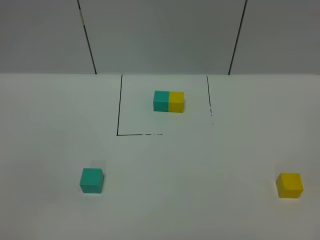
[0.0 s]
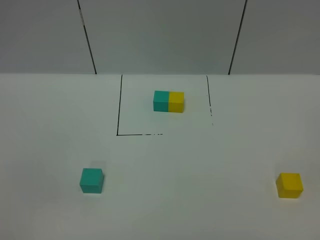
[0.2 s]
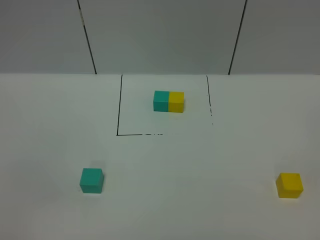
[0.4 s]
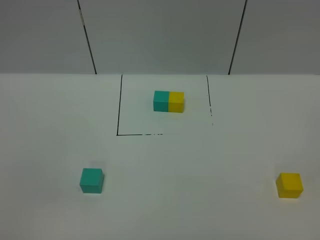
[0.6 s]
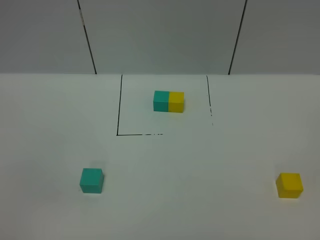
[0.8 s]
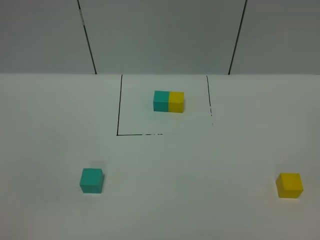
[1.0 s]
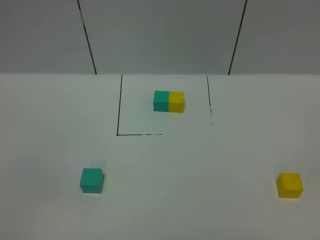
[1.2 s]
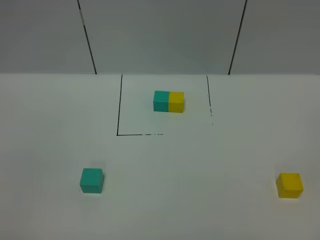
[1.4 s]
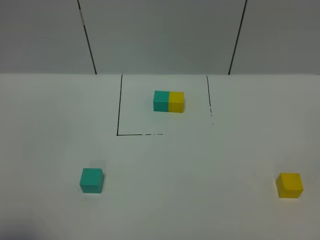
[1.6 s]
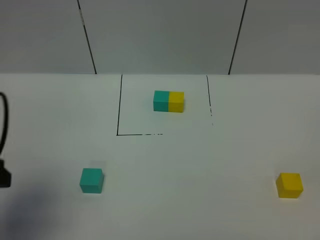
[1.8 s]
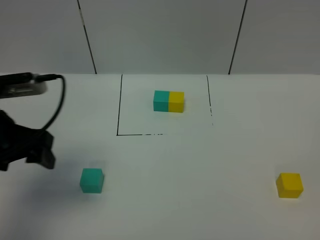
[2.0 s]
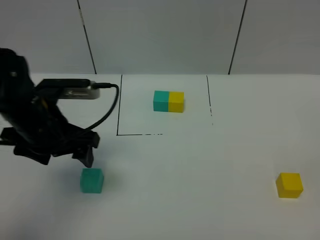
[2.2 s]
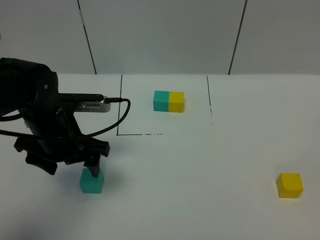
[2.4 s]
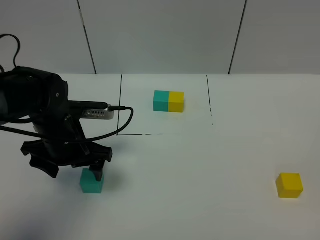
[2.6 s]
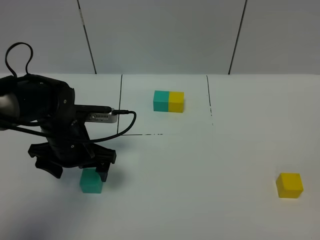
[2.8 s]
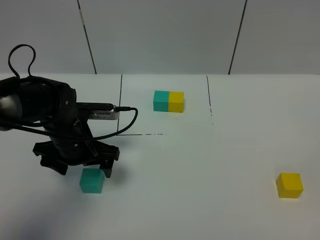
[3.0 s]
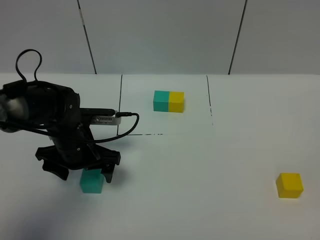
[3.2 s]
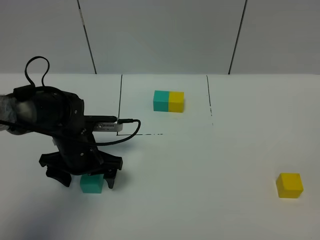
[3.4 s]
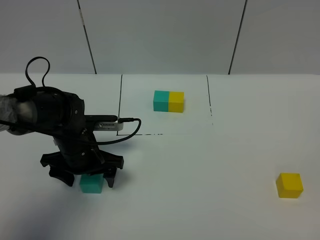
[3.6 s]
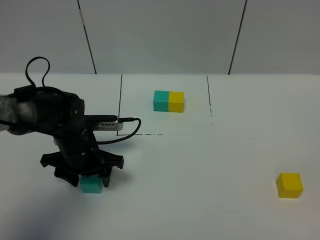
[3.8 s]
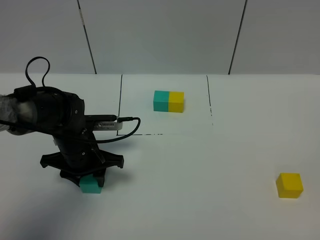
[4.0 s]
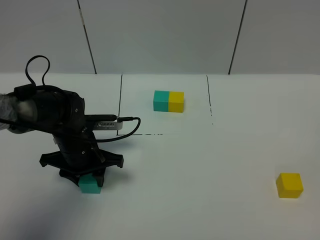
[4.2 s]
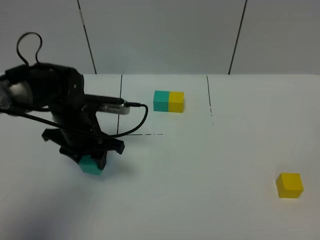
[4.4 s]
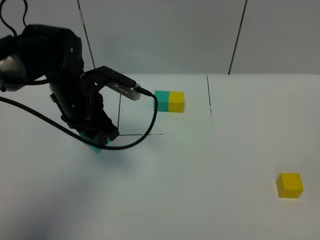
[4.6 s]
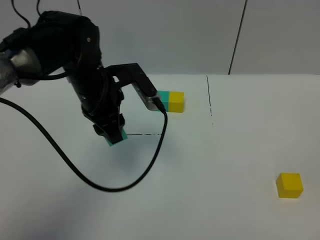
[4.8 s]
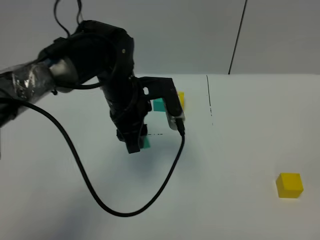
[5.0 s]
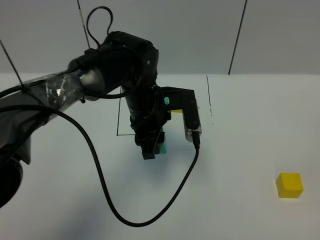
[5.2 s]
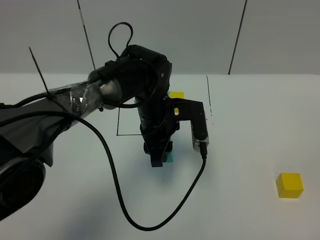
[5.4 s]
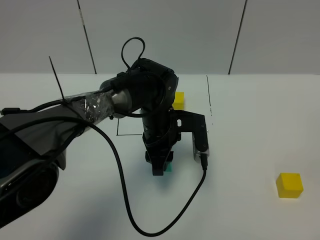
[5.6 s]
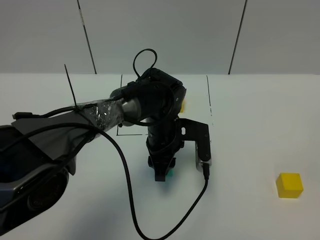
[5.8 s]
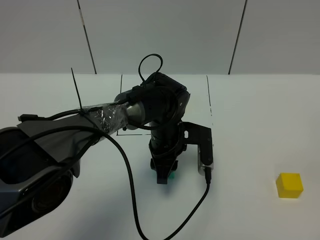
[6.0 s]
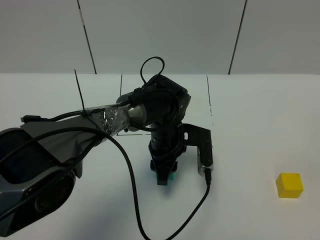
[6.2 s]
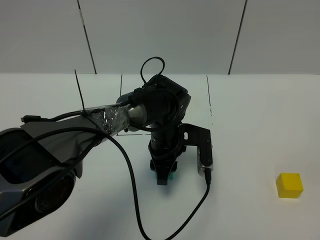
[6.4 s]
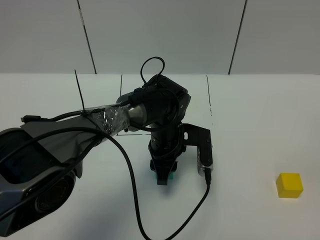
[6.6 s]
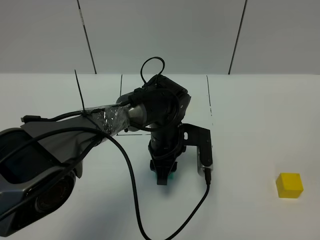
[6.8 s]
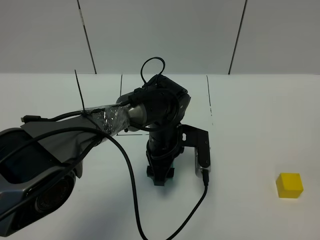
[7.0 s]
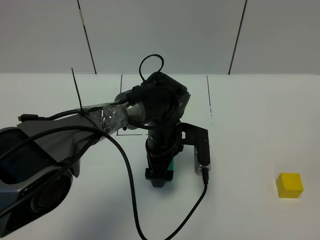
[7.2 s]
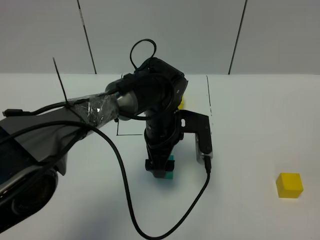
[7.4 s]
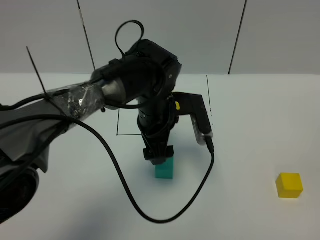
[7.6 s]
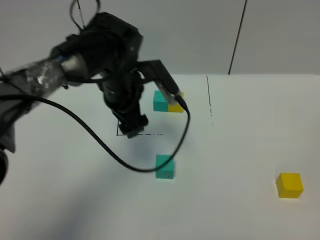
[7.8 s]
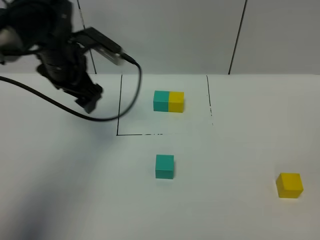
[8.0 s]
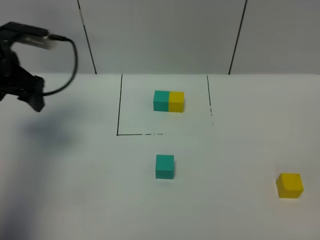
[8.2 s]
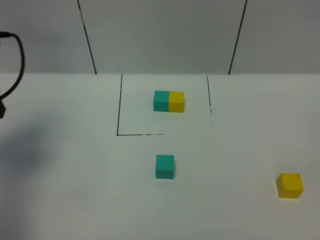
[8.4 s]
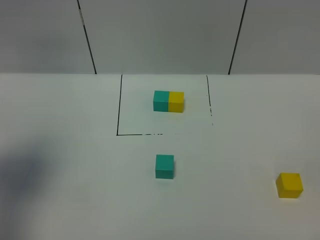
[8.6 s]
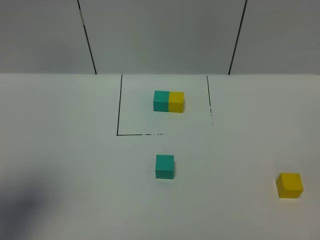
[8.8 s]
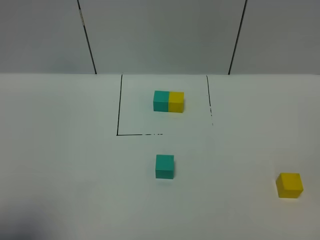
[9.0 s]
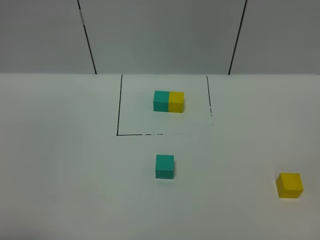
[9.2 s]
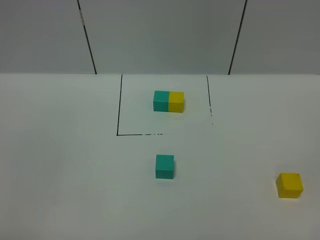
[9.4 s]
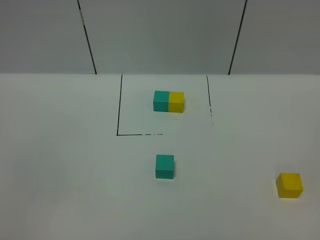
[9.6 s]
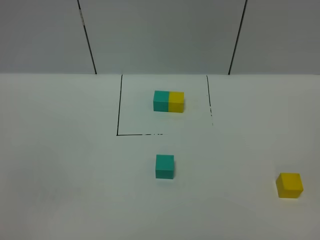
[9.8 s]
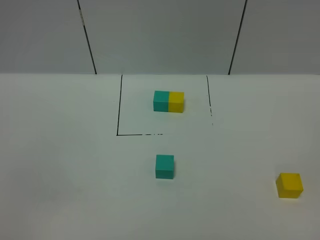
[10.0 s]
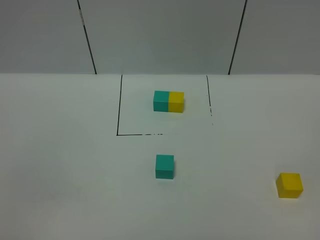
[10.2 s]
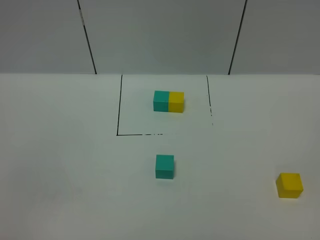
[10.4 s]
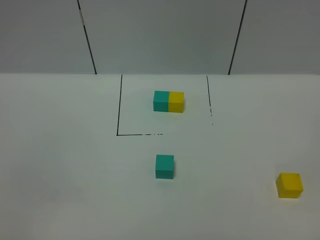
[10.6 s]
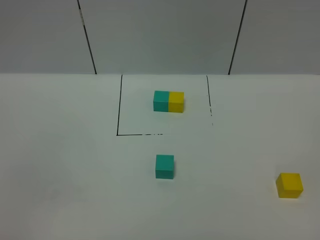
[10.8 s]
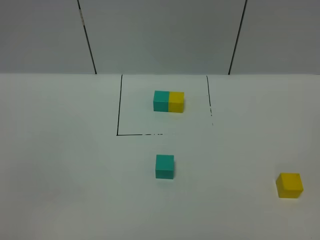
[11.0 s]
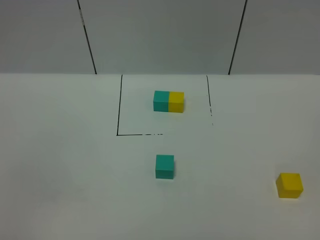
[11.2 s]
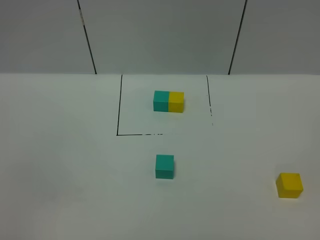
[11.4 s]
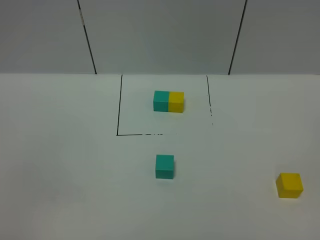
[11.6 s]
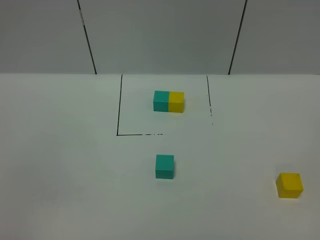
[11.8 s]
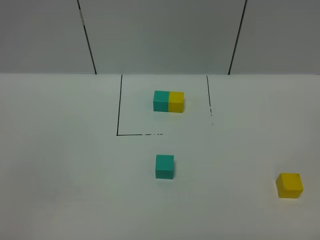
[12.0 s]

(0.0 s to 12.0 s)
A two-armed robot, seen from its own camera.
Task of the whole recording: According to the building block template in front, assemble the scattered blocks together.
Step, 1.8 s - 7.2 s: Put the green cube in the center of the table.
1.6 s - 3.0 s: The left gripper heads forward, downward and to the right, covering approximately 30 cm.
3.0 s - 4.4 s: The left gripper closes.
4.4 s - 6.0 s: The left gripper heads to the right, covering about 15 cm.
6.0 s - 7.6 s: The left gripper travels upward by roughly 10 cm, and opens.
7.6 s - 9.0 s: The left gripper goes approximately 40 cm to the left, backward and upward.
9.0 s - 10.4 s: The left gripper travels backward and downward by approximately 15 cm.

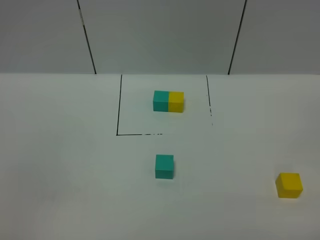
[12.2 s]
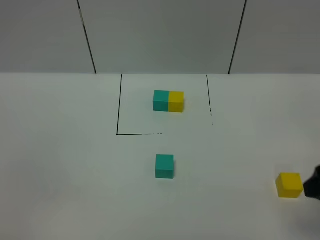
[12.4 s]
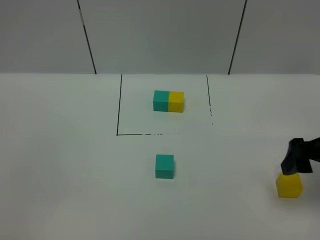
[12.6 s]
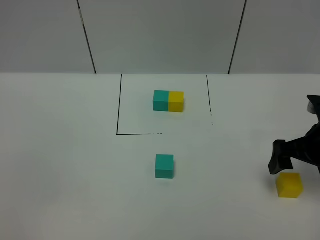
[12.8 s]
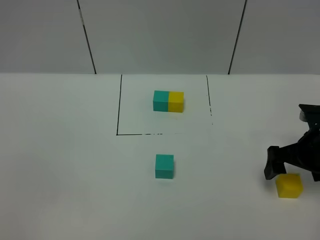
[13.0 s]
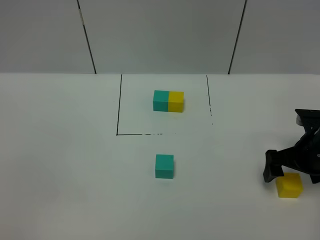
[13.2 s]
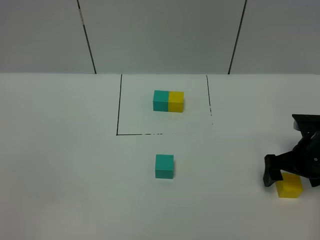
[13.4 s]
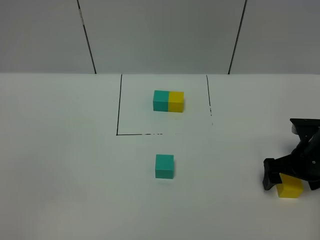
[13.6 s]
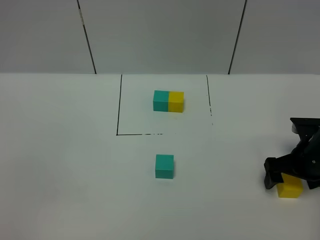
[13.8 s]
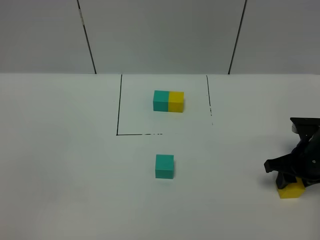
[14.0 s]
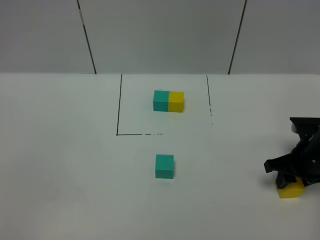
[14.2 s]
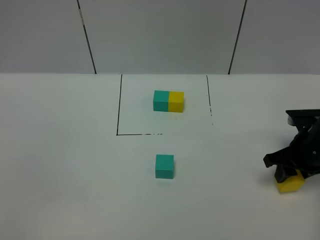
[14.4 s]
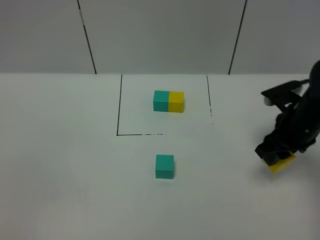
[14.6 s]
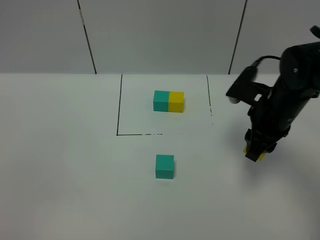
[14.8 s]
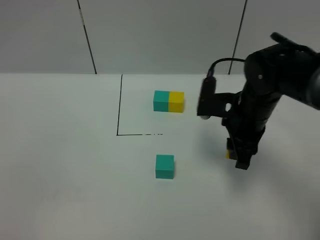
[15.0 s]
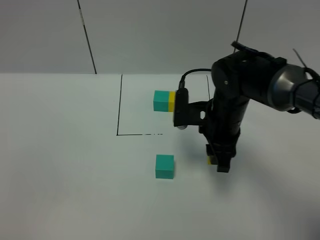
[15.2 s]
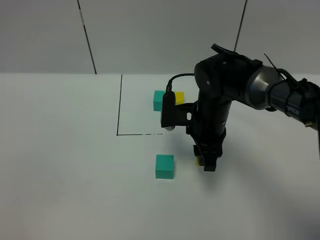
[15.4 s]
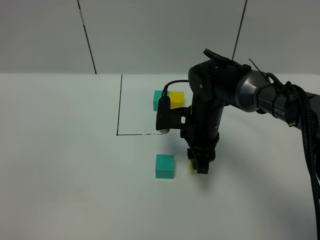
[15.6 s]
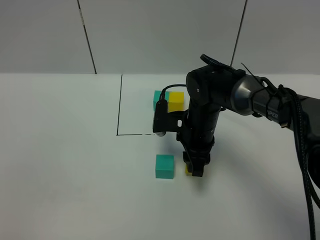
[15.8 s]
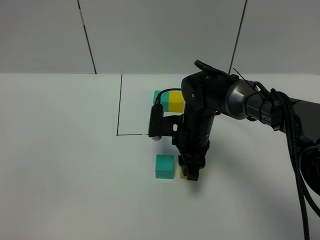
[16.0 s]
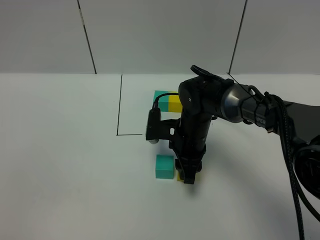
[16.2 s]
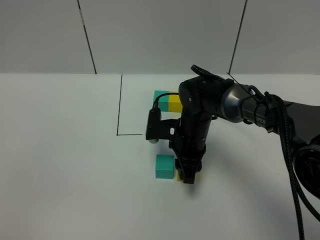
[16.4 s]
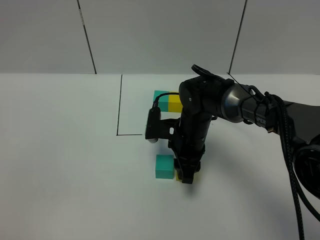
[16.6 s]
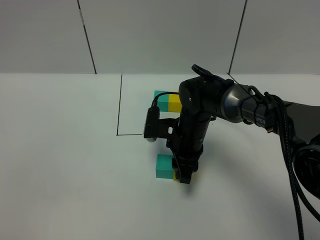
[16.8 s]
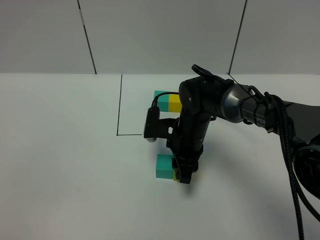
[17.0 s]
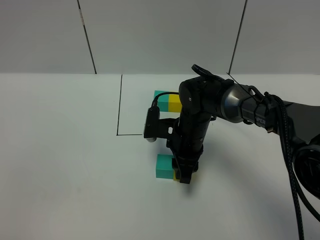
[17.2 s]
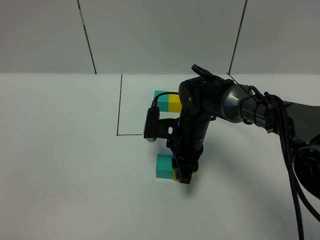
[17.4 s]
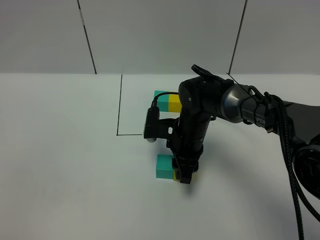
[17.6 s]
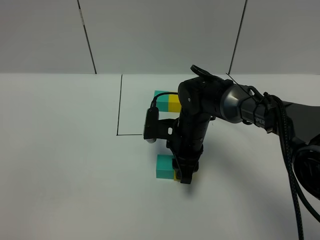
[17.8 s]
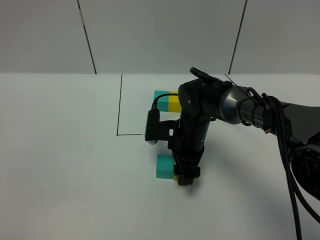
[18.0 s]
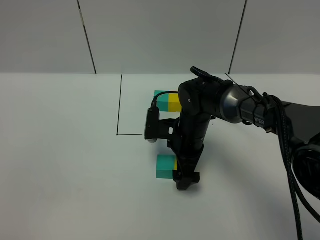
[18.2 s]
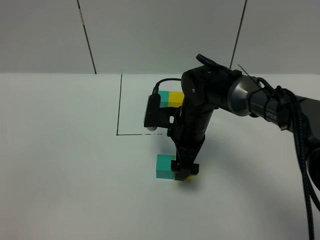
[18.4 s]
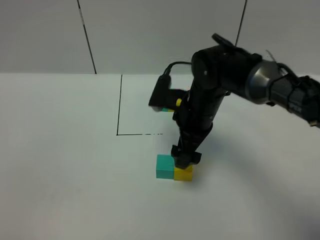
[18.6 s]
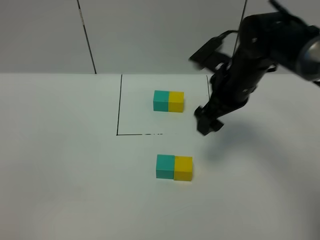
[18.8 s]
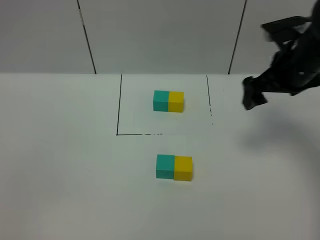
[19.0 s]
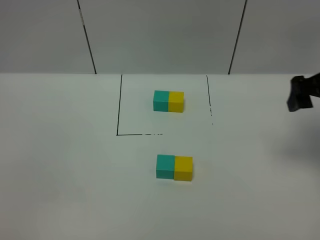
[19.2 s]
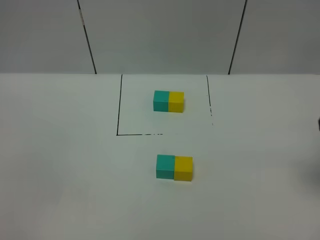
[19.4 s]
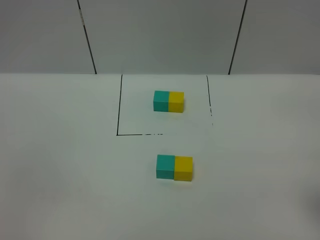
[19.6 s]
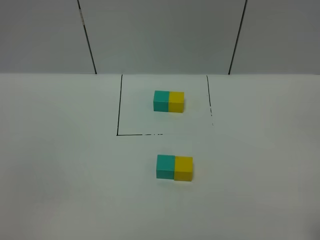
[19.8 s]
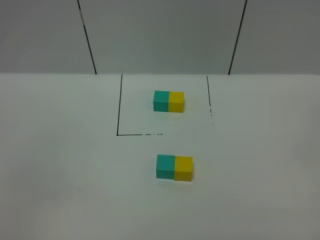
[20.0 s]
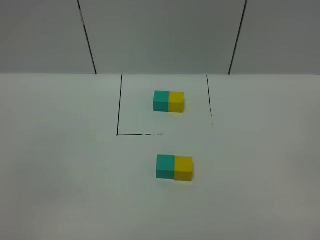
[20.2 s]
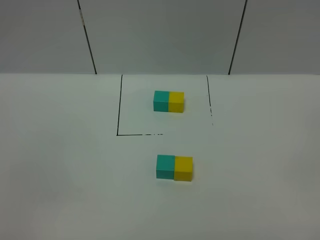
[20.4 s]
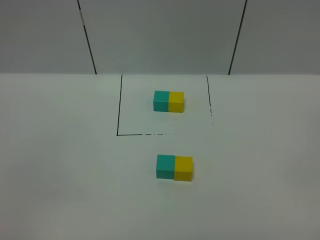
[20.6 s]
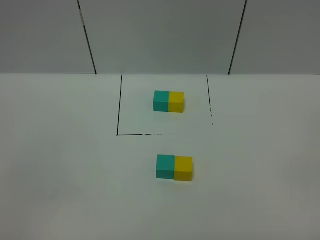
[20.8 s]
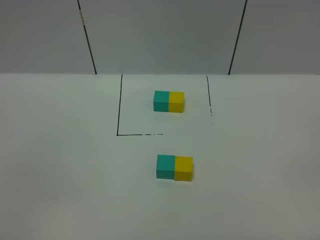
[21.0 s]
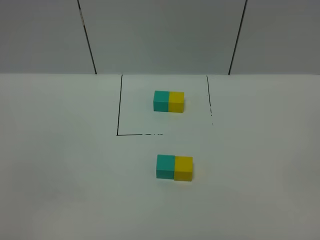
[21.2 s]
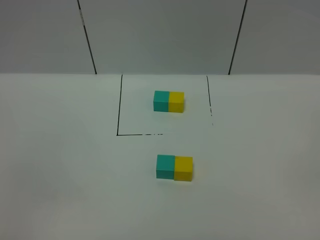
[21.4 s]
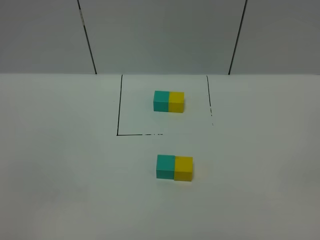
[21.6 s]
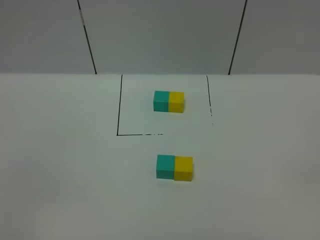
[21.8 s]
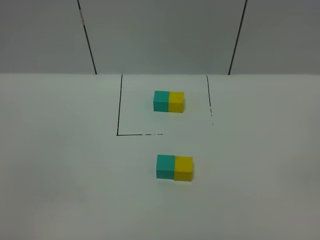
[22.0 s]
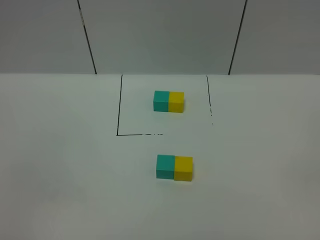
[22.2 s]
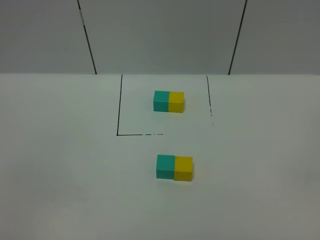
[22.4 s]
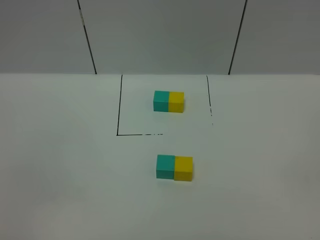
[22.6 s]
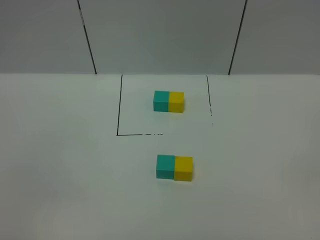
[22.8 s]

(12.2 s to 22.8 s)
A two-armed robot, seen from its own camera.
Task of the whole recording: According to the building block template in front, assemble the scattered blocks together.
Step, 12.2 s - 18.2 s: Put the yellow cube on the right of the green cube.
12.2 s - 13.8 s: The right gripper moves forward and downward, about 25 cm.
13.8 s - 15.2 s: The right gripper goes roughly 20 cm to the left, and closes up.
15.2 s - 16.8 s: The right gripper travels downward and to the left by about 10 cm.
16.8 s - 18.2 s: The right gripper opens.
18.2 s - 19.8 s: The right gripper goes approximately 40 cm backward, to the right and upward.
